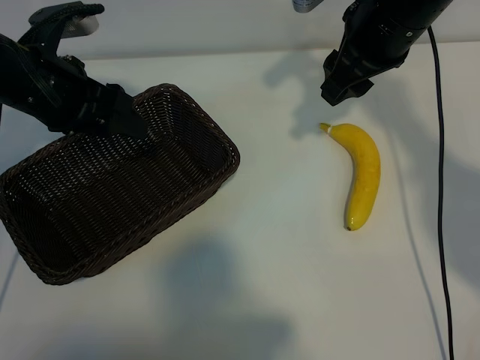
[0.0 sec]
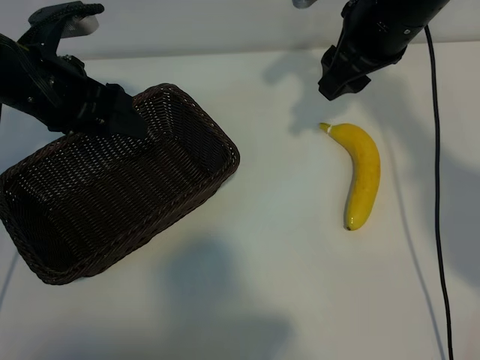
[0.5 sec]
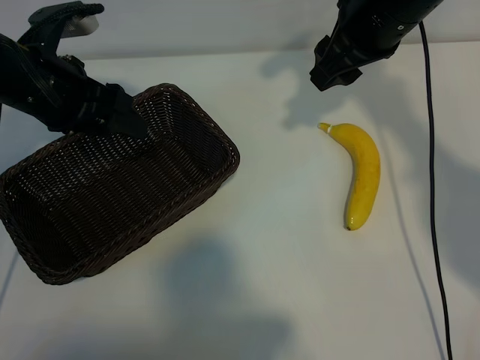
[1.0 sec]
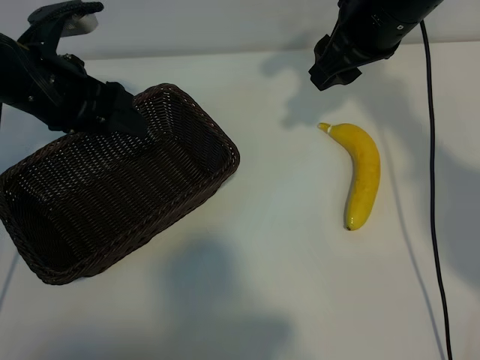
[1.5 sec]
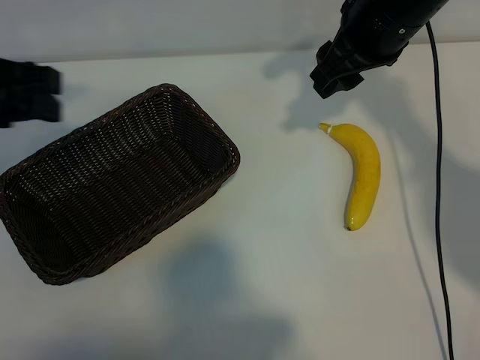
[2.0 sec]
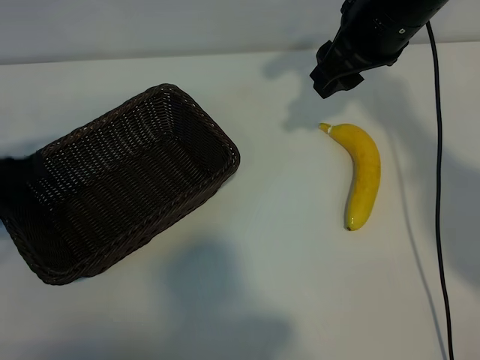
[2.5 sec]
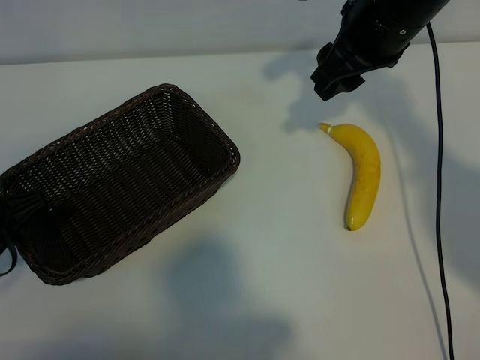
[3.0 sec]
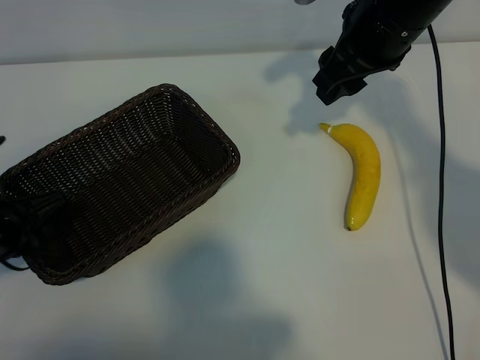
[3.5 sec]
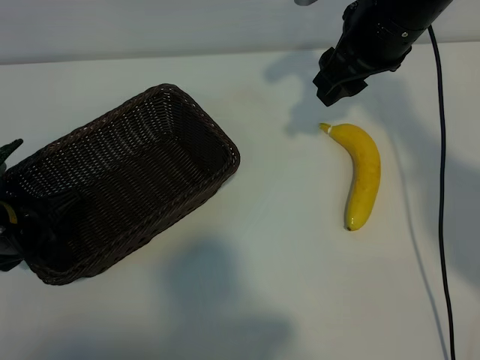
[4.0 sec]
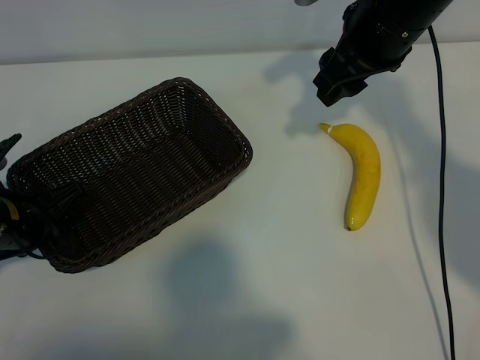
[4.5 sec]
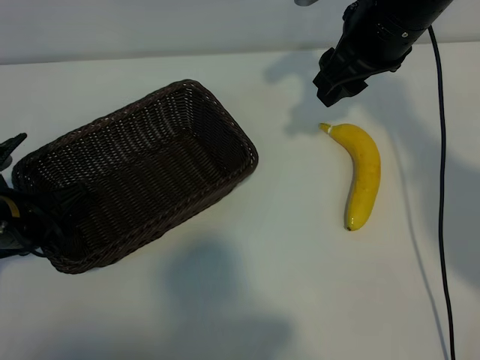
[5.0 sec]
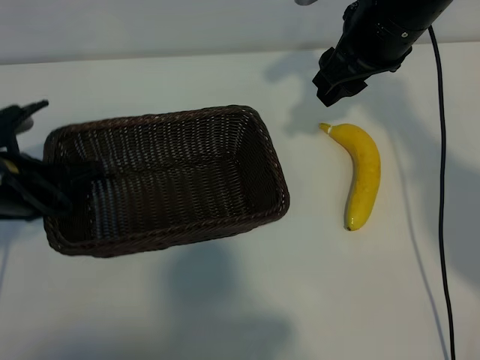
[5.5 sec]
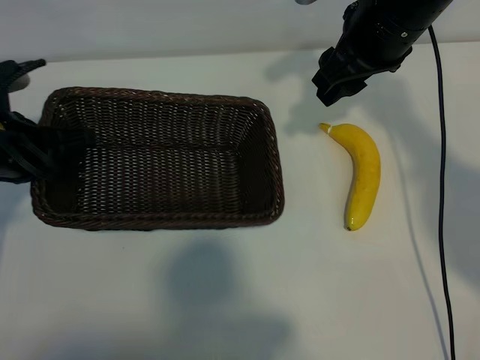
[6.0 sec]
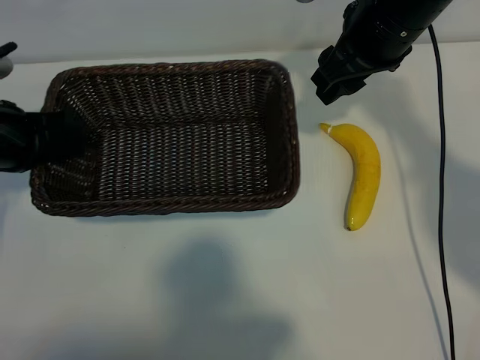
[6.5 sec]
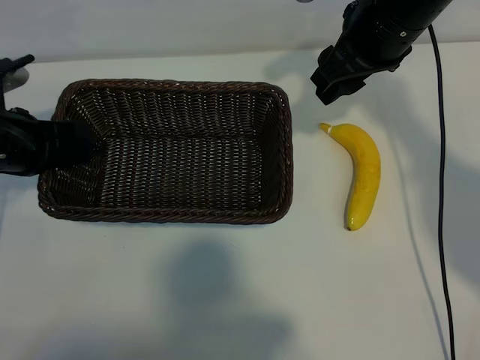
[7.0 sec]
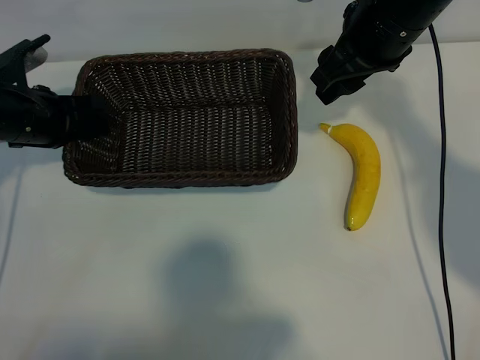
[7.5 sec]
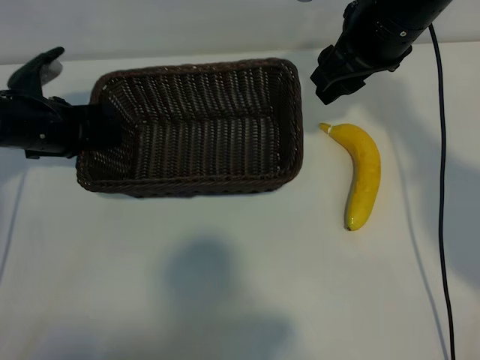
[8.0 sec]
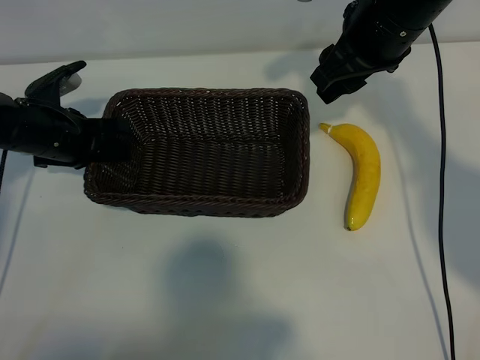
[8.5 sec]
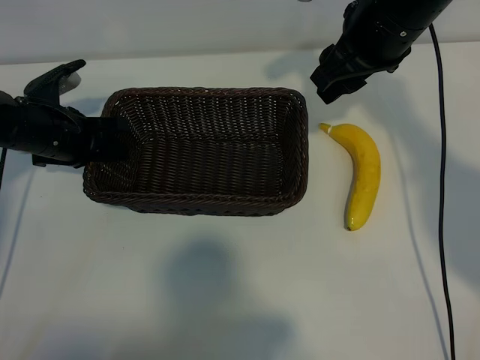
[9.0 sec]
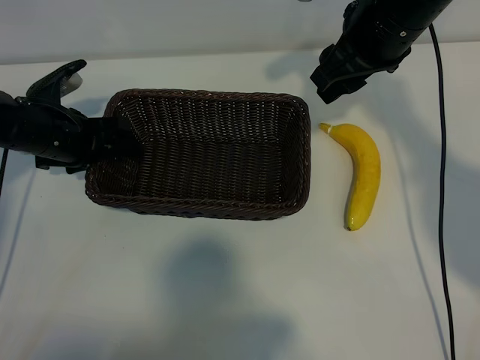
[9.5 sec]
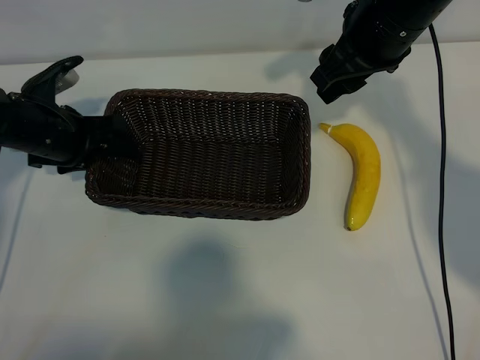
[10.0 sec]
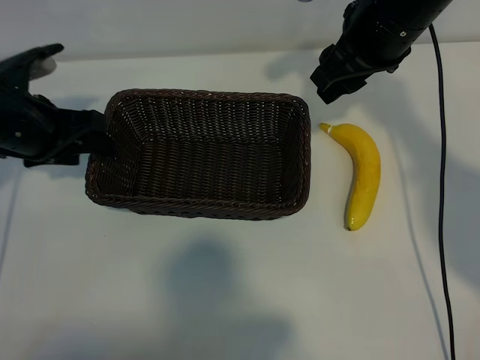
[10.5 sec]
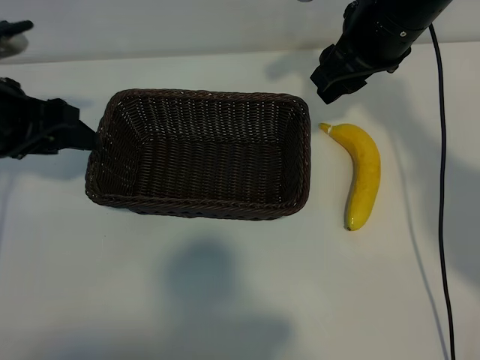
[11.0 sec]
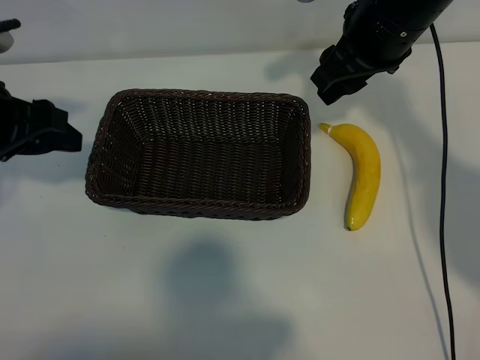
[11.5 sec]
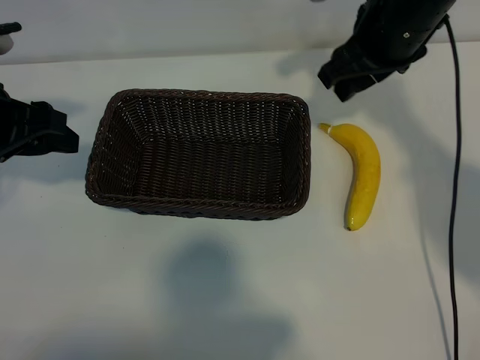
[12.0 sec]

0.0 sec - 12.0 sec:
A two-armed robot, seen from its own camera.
Task of the whole recording: pick up the banana and put it into the basket.
Step, 0.0 sec - 4.5 sec: Grasp the basket with the left gripper.
Step, 5.0 sec - 10.5 sec: Place the basket in the center of the table with the left gripper.

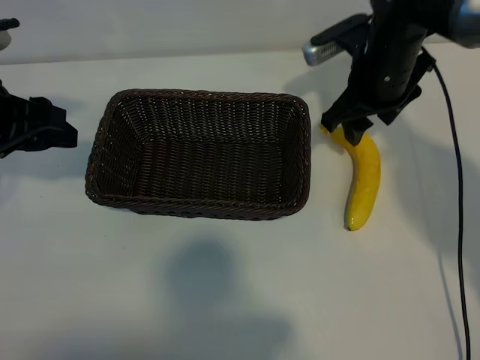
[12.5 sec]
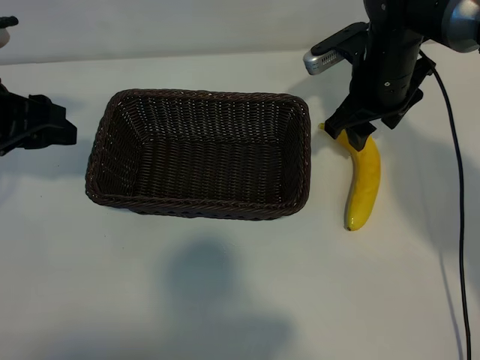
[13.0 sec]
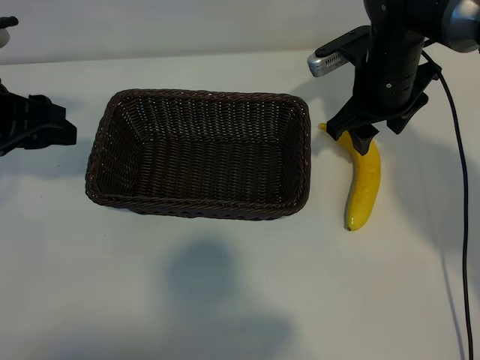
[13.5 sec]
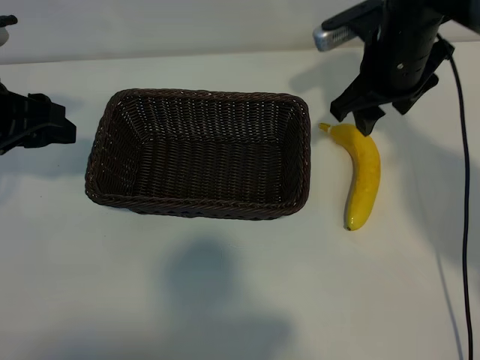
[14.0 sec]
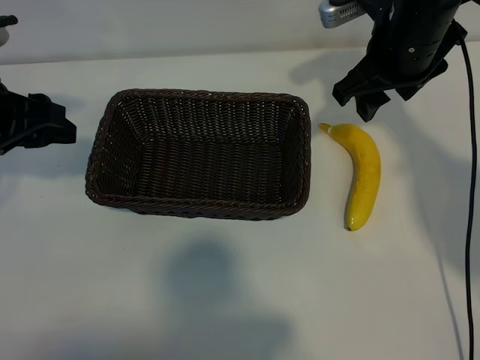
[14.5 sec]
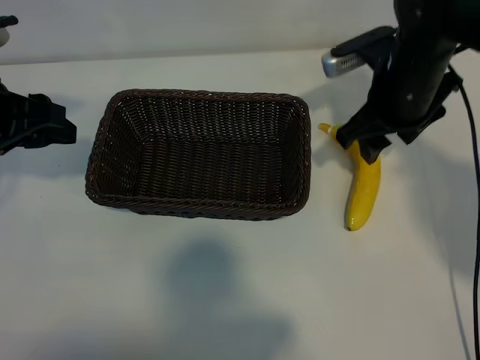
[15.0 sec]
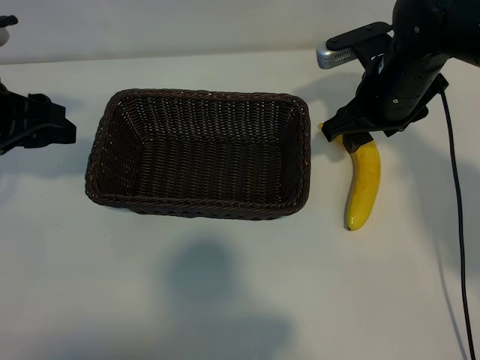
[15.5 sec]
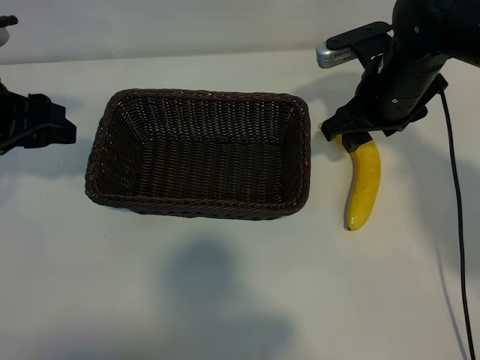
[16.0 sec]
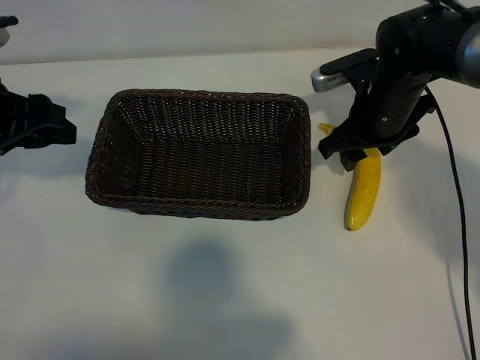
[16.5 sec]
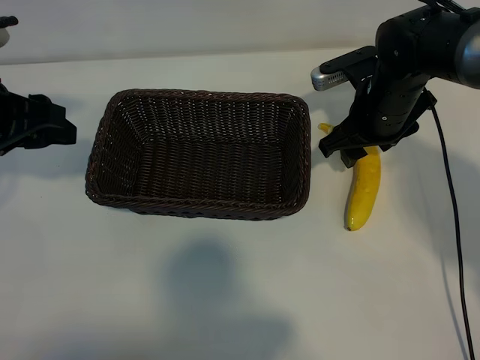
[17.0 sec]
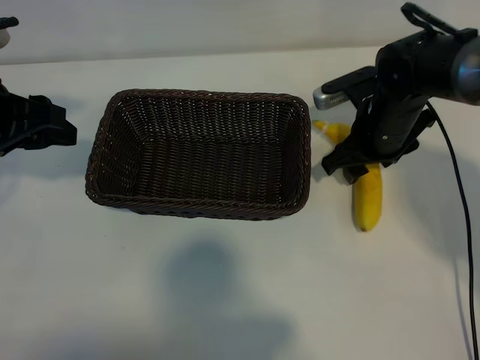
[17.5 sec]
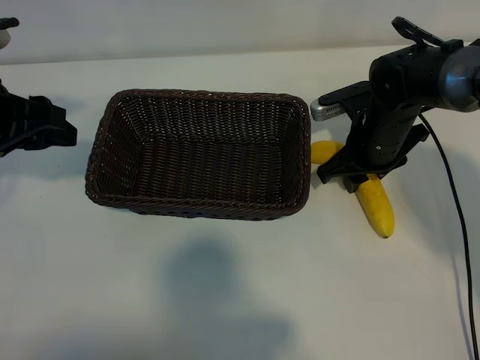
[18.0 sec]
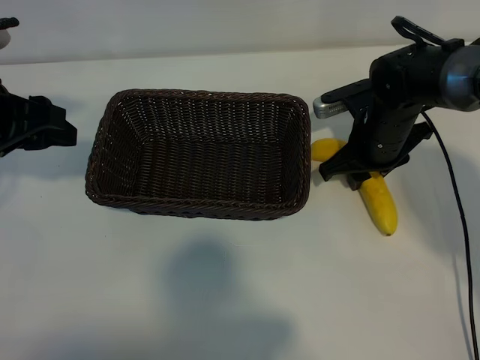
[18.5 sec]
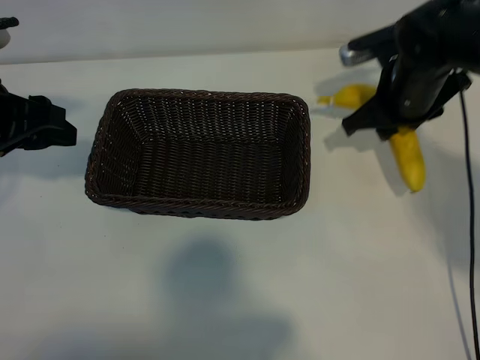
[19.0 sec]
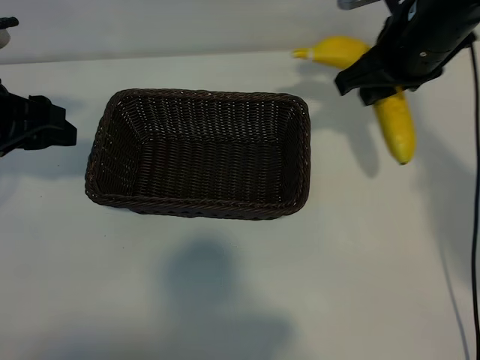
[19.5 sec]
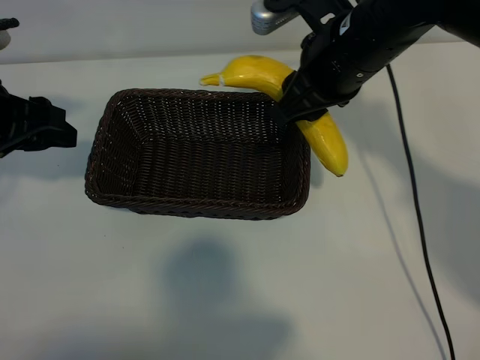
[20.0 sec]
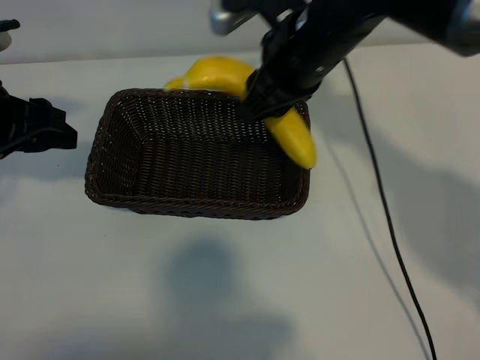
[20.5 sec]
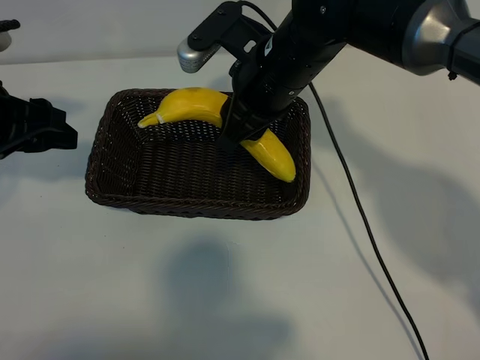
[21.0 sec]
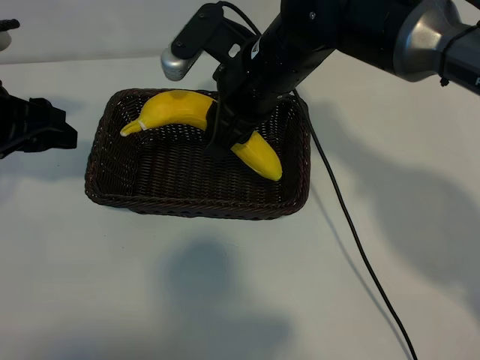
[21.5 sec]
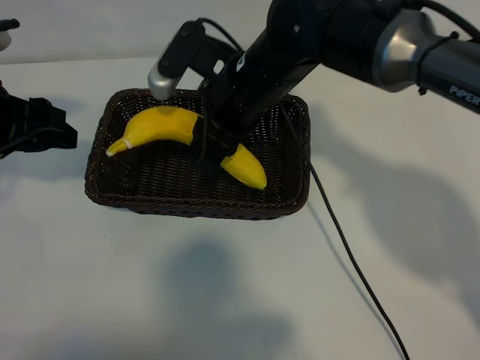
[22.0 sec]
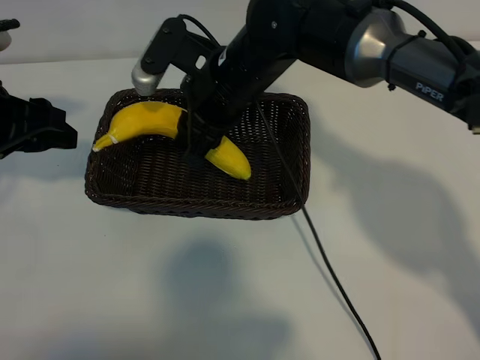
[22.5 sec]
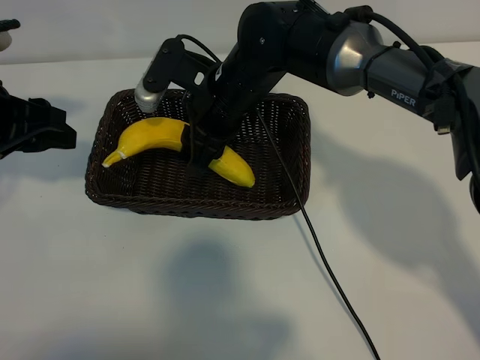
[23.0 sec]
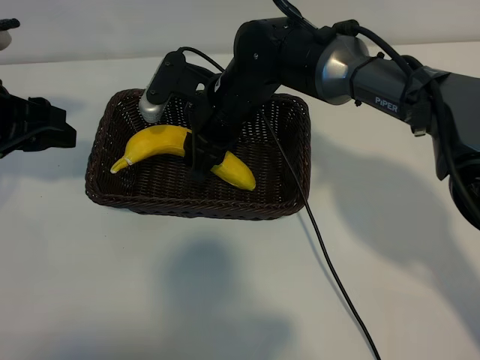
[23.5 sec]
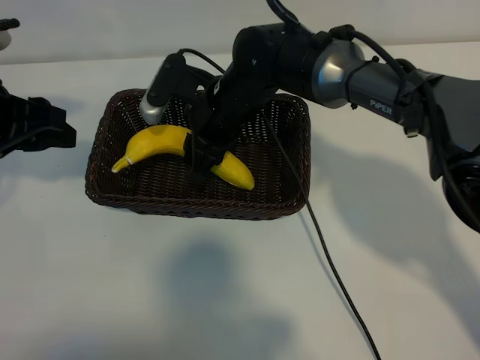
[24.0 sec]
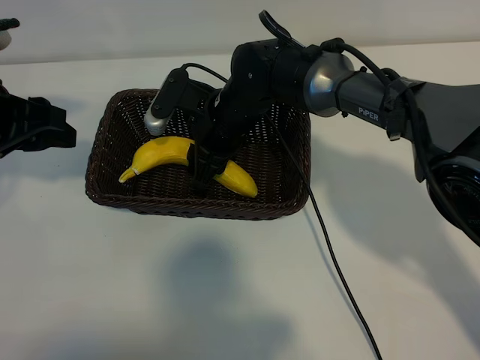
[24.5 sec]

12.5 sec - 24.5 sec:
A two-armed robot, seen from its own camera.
Task of the whole recording: pick up the banana and put it into the basket.
Step, 12.5 sec - 18.0 sec: Grasp the banana with right gripper.
